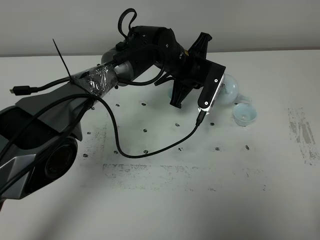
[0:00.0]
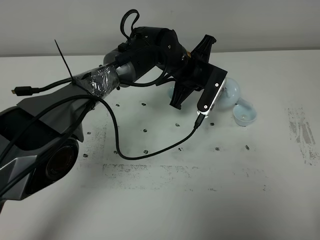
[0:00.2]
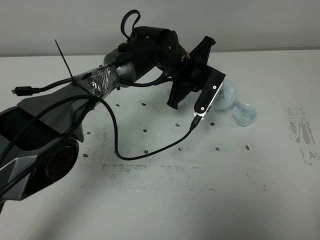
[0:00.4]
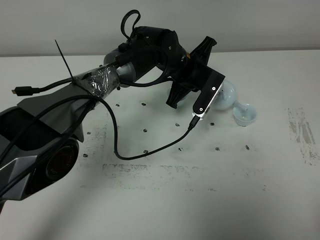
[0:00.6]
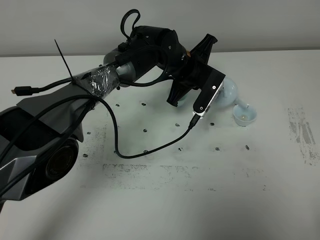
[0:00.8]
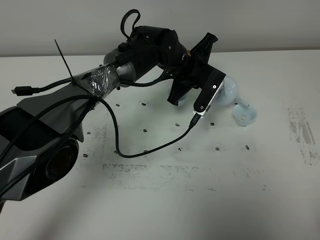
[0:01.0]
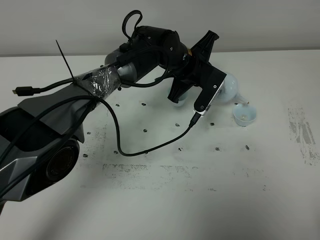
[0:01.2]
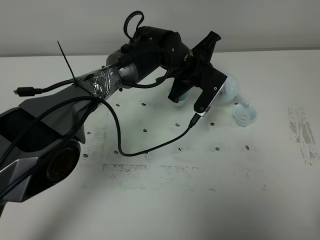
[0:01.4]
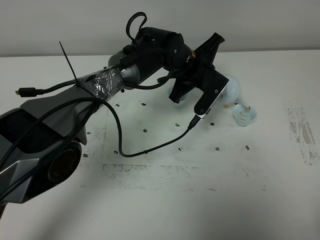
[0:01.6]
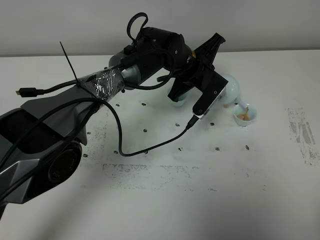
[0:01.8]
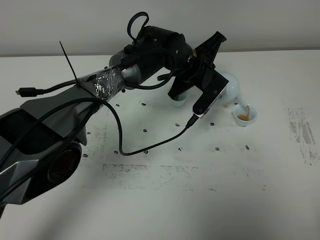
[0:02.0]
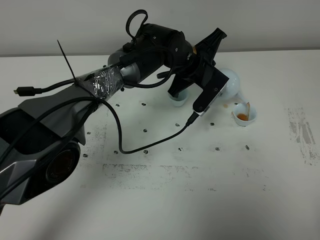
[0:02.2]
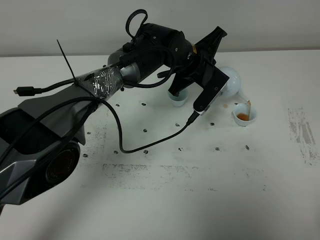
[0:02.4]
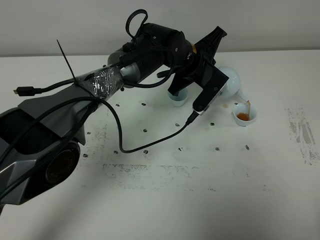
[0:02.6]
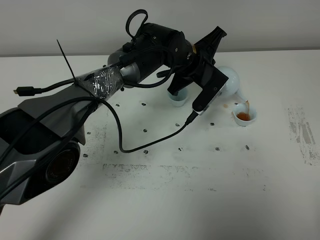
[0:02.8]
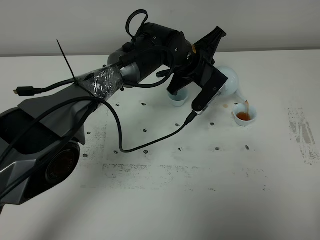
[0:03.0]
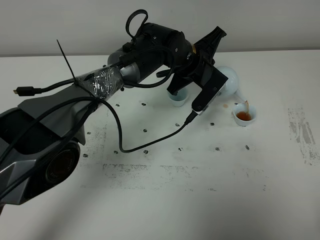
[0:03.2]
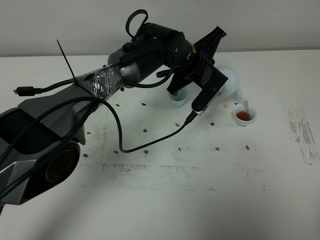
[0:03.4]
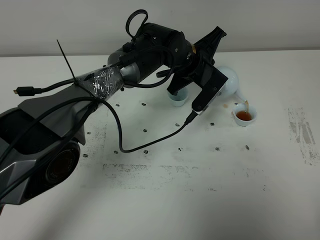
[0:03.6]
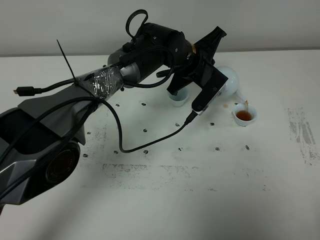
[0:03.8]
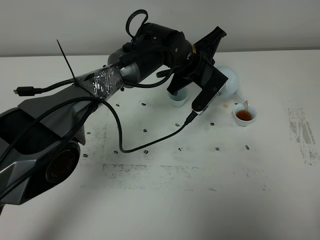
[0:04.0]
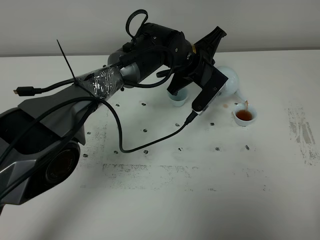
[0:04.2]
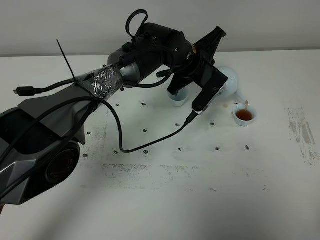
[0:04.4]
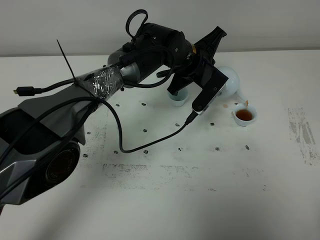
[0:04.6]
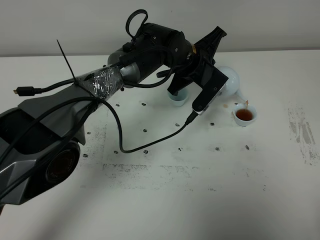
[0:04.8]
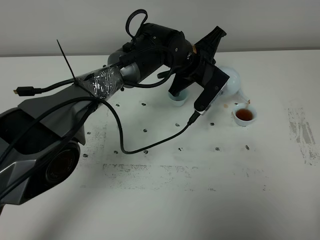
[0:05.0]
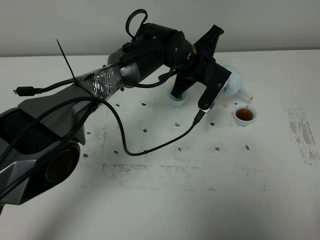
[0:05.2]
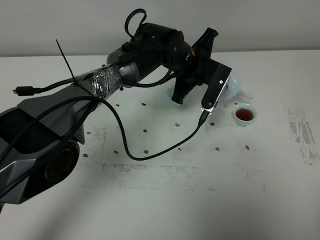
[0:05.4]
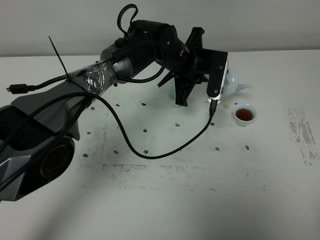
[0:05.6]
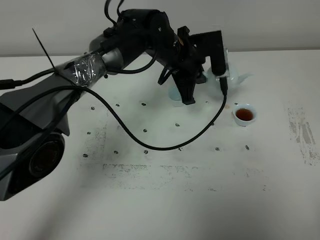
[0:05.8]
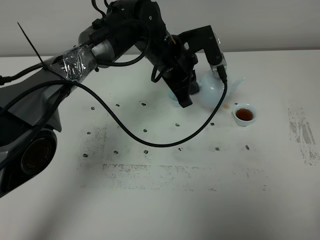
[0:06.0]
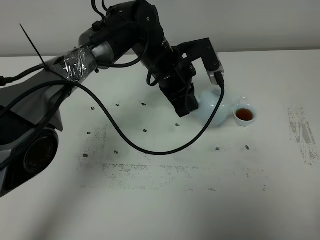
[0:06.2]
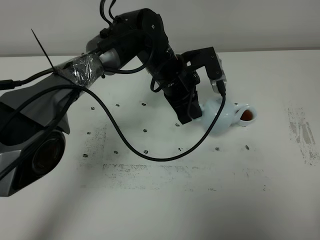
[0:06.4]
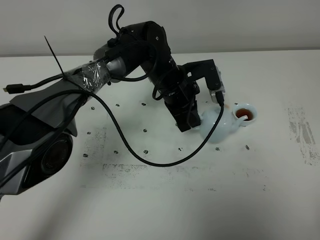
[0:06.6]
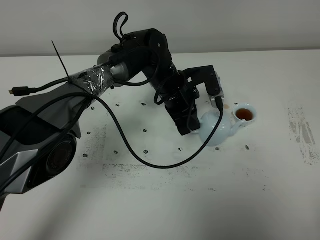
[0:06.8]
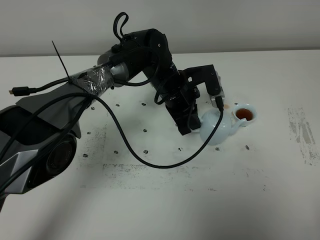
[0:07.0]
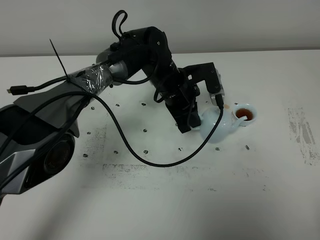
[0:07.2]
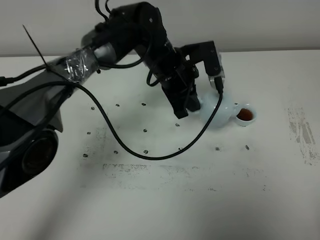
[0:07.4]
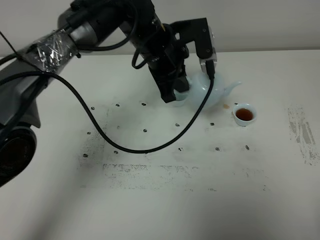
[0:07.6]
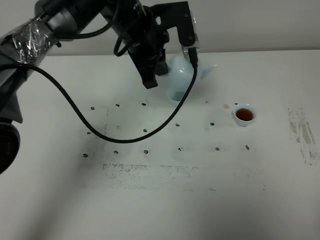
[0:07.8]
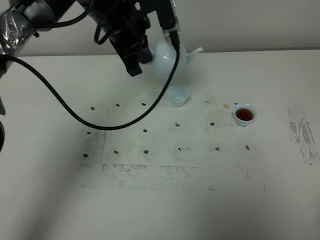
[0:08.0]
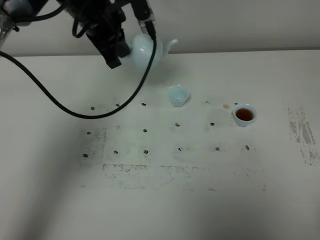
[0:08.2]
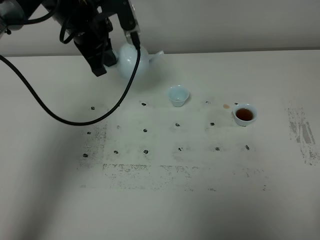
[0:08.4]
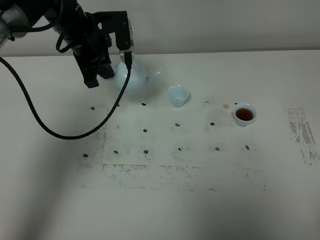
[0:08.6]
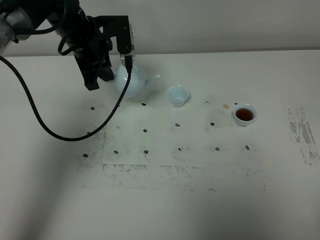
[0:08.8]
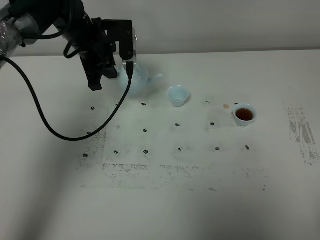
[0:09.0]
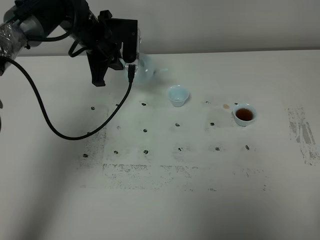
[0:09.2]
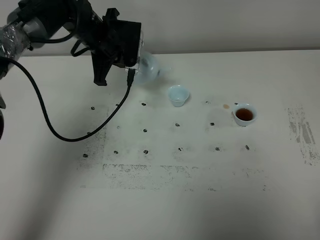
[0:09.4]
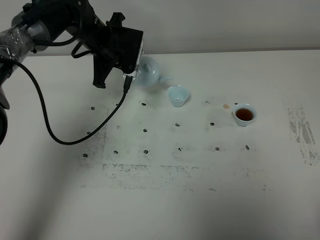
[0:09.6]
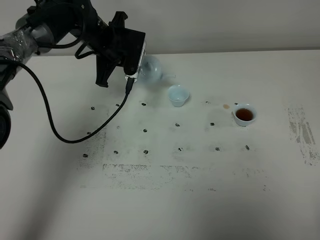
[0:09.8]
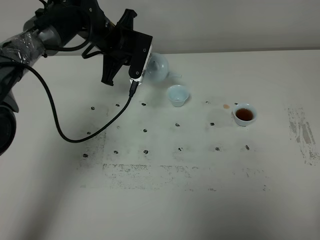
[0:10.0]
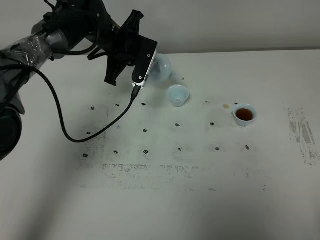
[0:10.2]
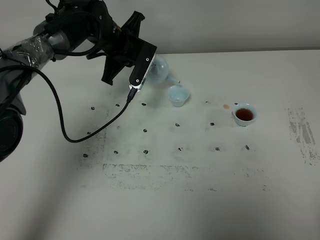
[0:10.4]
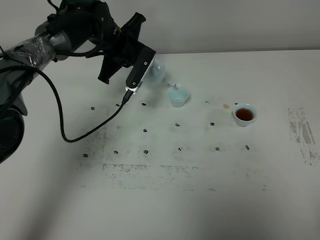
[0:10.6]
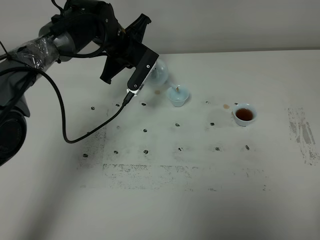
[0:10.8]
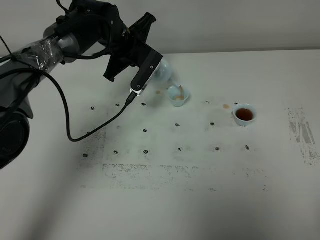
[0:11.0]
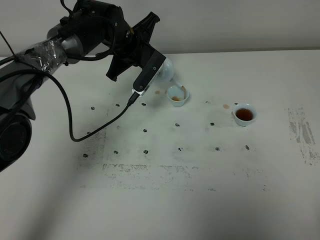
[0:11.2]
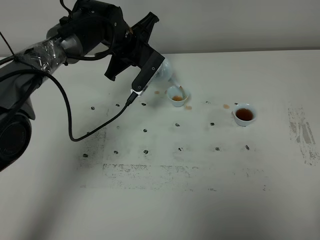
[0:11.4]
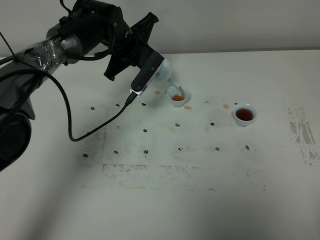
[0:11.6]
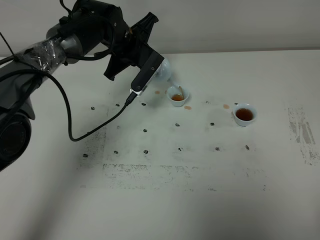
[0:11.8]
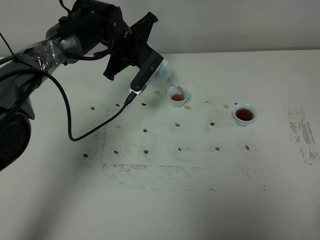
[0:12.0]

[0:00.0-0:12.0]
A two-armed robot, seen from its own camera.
Task of the whole recording: grasp the blue porcelain teapot and pour the tea into the two blue porcelain teacups one by one, put the blue porcelain teapot back in its original place.
0:00.0 to 0:01.6: The grippers stay close to where they were, moving slightly.
0:01.6 to 0:03.0: The grippers stay close to where they were, moving slightly.
0:03.0 to 0:04.4: Both grippers stay about where they are.
0:06.0 to 0:07.6: The left gripper moves roughly 5 cm.
0:07.6 to 0:09.0: The left gripper goes about 15 cm to the left and forward.
0:09.0 to 0:10.4: The left gripper changes place by some 5 cm.
0:10.4 to 0:12.0: The grippers make only small movements.

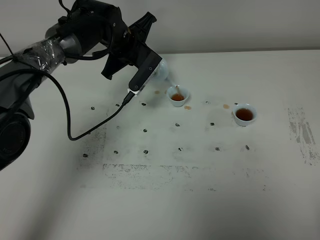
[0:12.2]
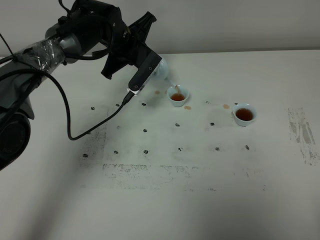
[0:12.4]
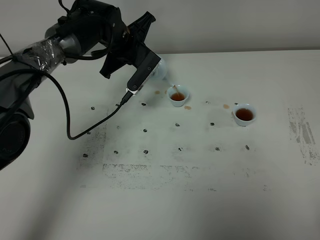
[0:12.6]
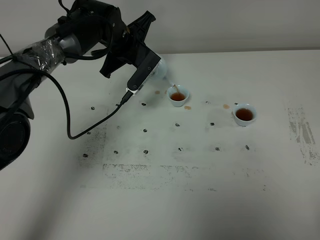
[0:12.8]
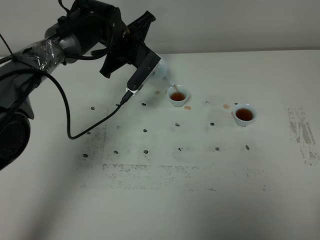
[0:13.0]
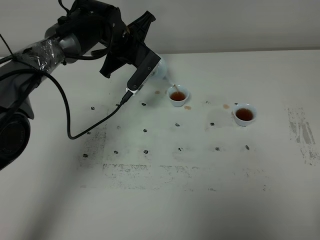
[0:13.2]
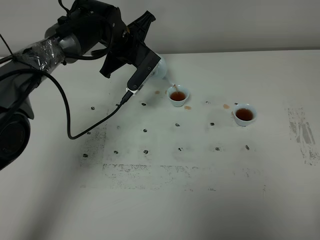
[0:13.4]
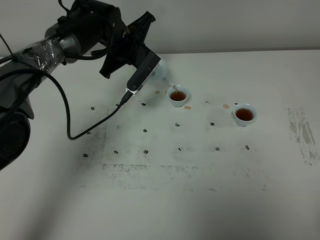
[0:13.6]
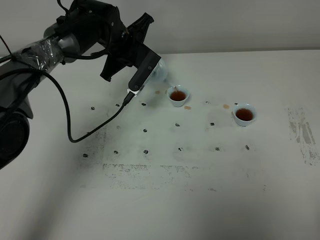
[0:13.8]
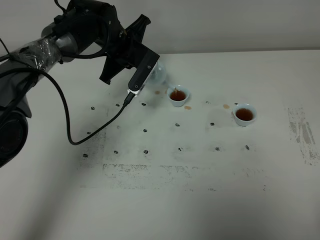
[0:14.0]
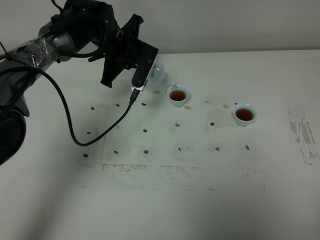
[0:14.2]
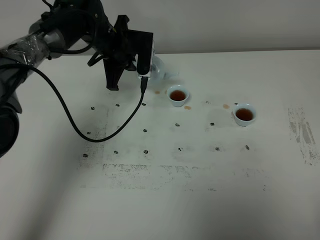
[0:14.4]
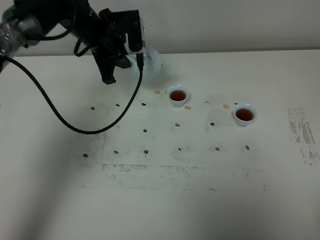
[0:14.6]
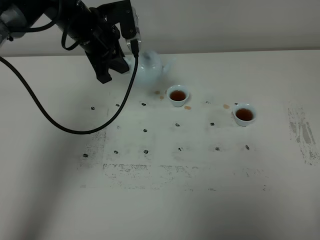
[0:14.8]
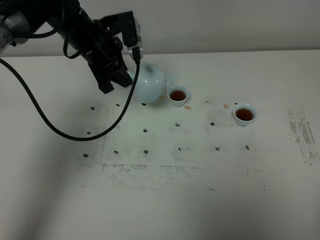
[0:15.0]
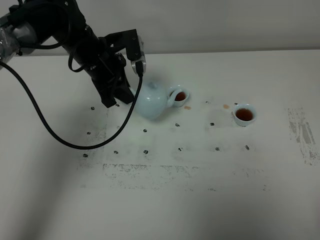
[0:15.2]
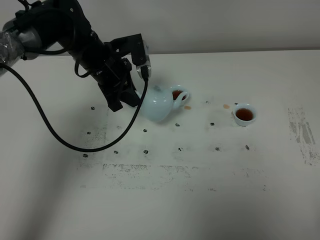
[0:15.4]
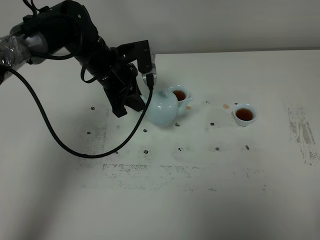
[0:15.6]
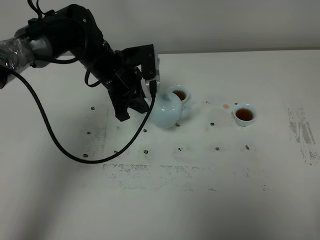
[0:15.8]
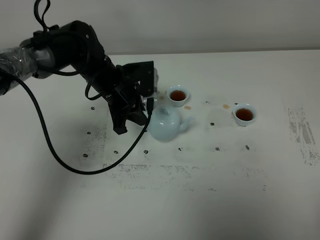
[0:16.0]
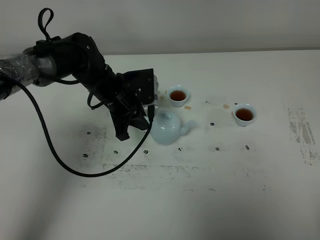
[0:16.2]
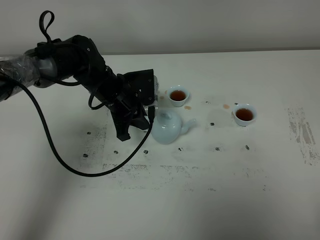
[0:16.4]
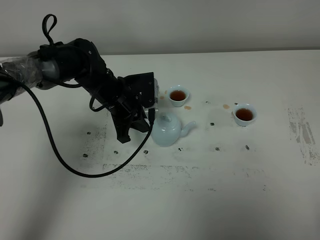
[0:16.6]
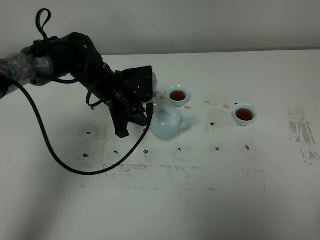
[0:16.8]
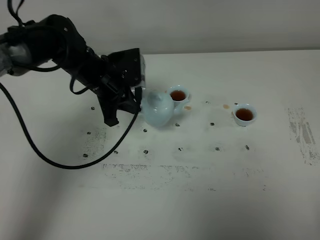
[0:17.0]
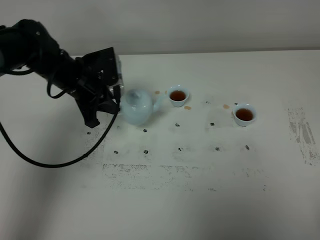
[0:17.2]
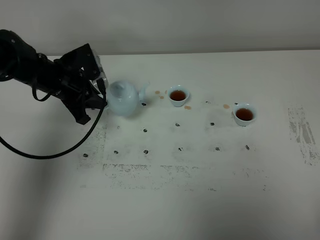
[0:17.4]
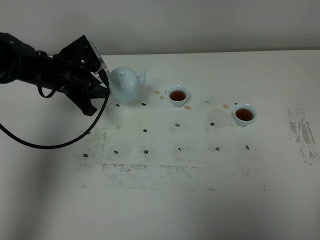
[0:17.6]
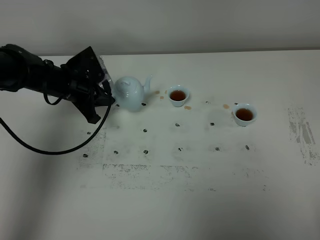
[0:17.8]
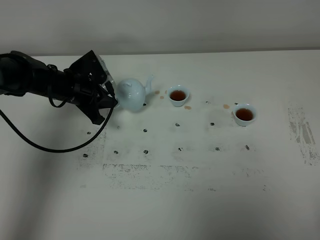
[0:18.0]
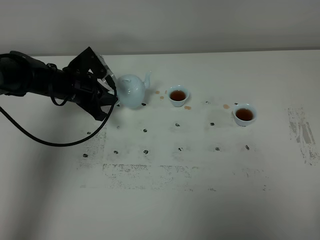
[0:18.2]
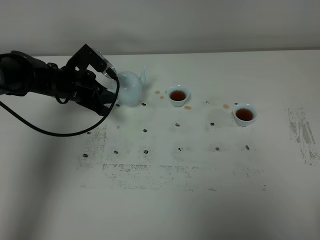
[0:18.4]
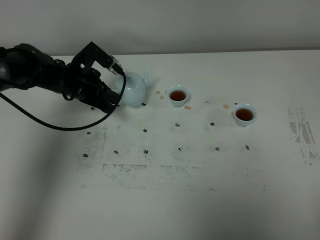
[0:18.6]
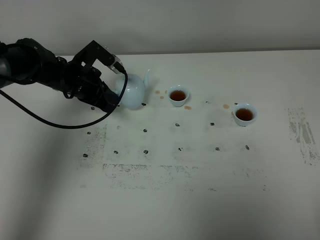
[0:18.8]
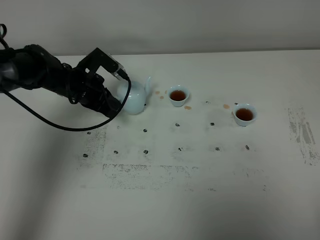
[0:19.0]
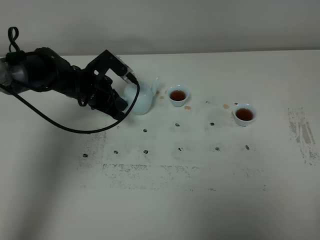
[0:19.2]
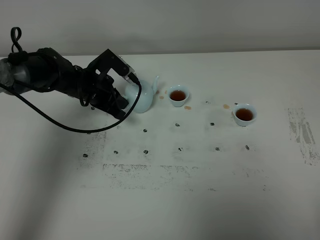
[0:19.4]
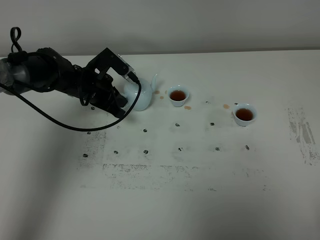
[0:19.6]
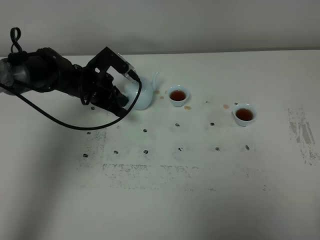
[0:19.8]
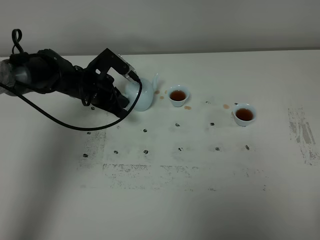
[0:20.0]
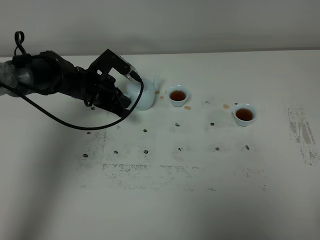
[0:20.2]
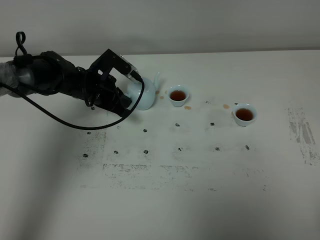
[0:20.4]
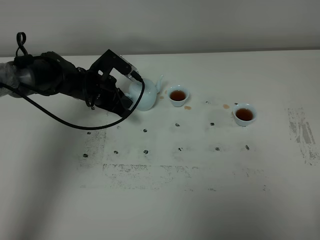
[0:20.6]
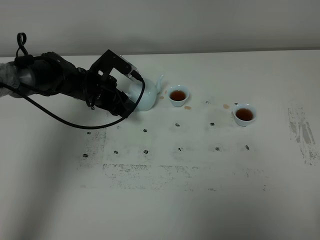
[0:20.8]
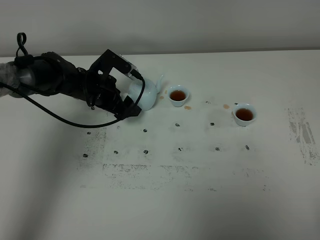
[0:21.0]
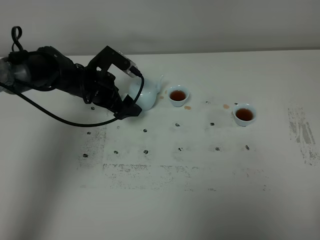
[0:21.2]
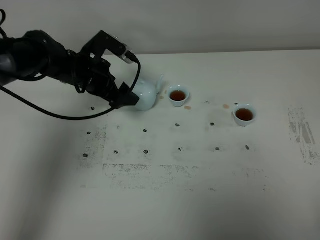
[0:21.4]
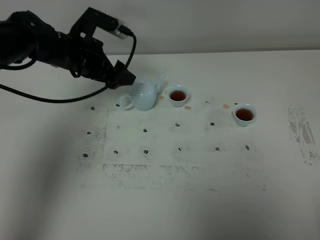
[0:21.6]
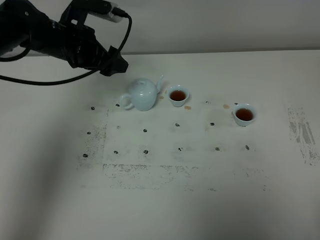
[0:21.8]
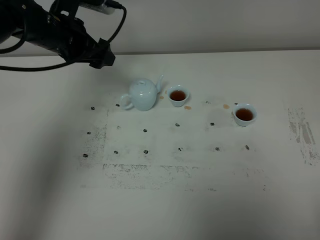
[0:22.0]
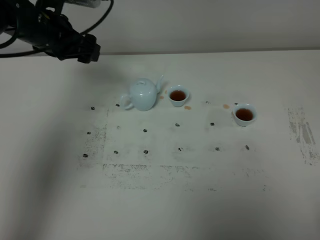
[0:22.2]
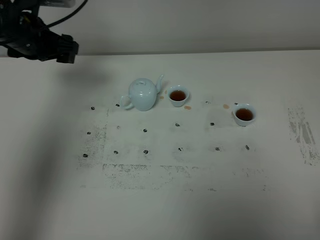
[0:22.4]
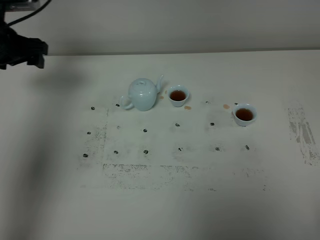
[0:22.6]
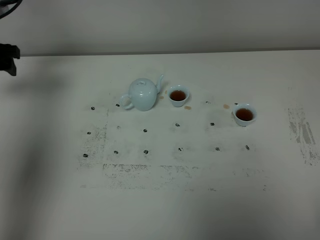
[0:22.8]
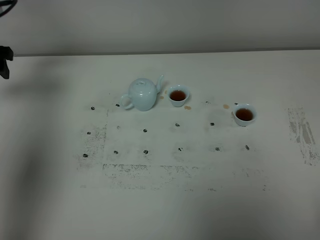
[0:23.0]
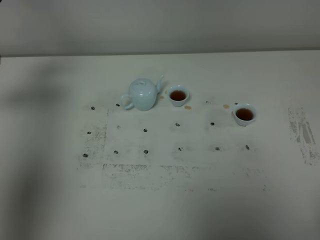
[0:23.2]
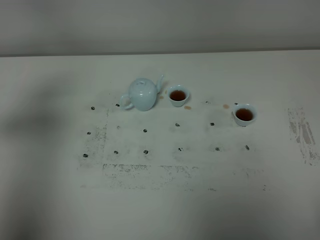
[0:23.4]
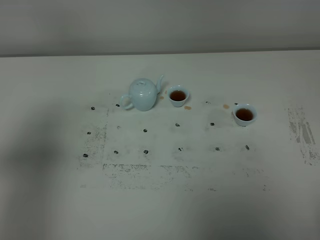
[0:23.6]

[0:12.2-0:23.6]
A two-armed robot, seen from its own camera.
Task of the whole recording: grasp the blue porcelain teapot and pour the tea into the two blue porcelain teacups one by one, put the blue porcelain teapot back in its original place.
Step, 0:12.2 to 0:14.4: Pour tea into the teacup with the left gripper.
0:12.2 to 0:13.6: Both grippers stay about where they are.
0:13.6 to 0:15.0: The left gripper moves approximately 5 cm.
0:15.0 to 0:16.4: The left gripper goes roughly 10 cm downward.
0:16.4 to 0:17.8: The left gripper goes some 10 cm to the left.
0:17.8 to 0:19.4: The grippers stay close to where they were, moving slightly.
0:19.4 to 0:20.8: The left gripper opens up.
0:20.8 to 0:22.2: The left gripper travels upward by about 15 cm.
0:22.2 to 0:23.6: The left gripper shifts approximately 25 cm backward.
